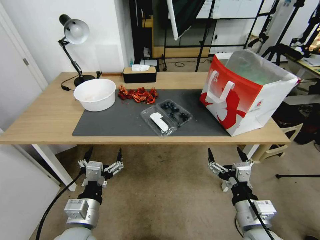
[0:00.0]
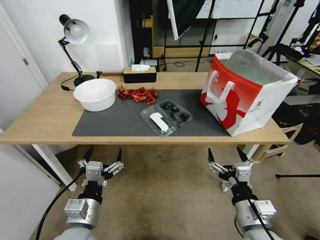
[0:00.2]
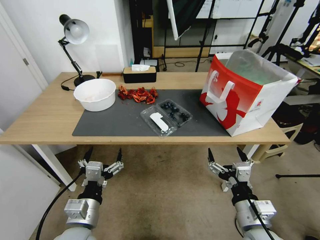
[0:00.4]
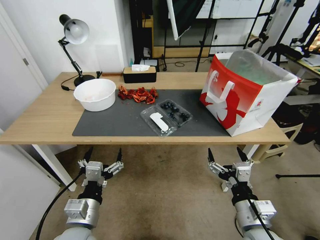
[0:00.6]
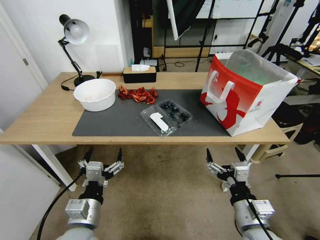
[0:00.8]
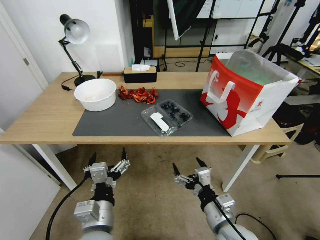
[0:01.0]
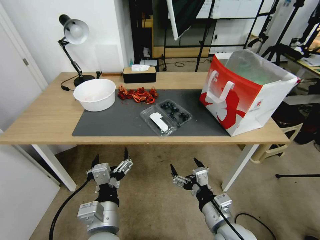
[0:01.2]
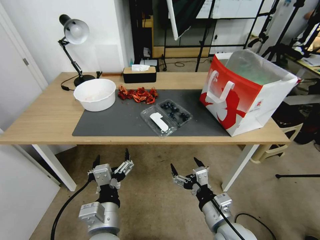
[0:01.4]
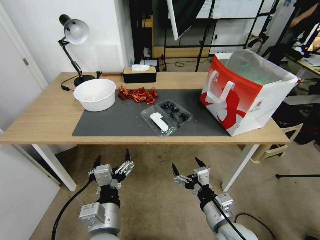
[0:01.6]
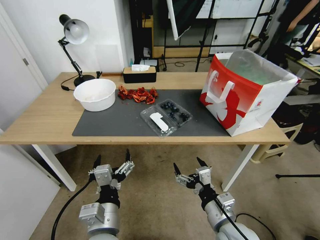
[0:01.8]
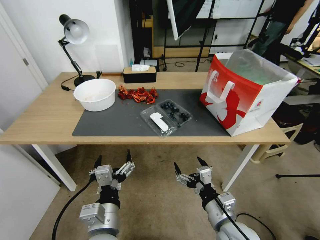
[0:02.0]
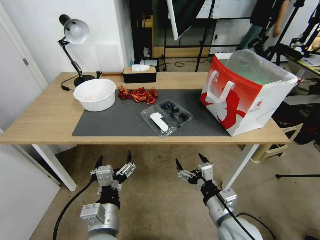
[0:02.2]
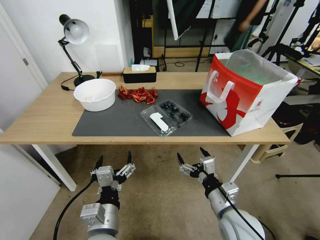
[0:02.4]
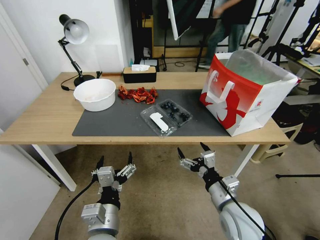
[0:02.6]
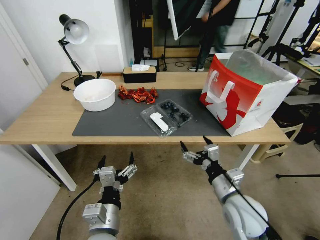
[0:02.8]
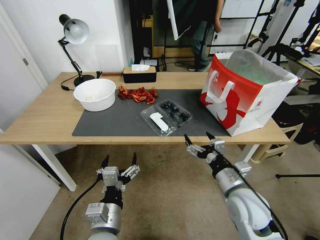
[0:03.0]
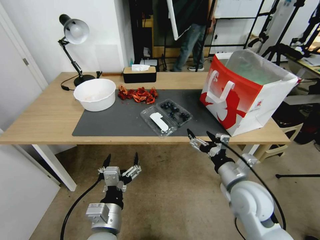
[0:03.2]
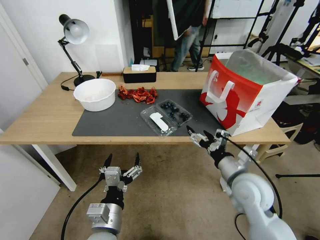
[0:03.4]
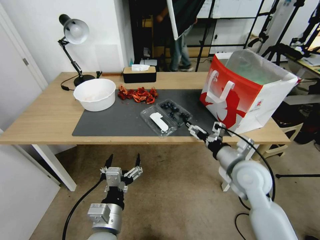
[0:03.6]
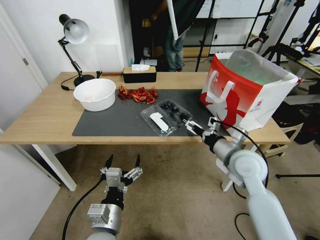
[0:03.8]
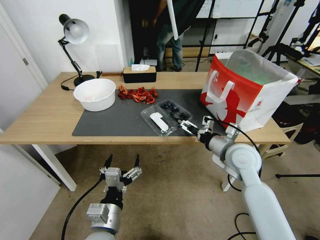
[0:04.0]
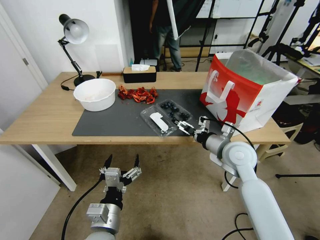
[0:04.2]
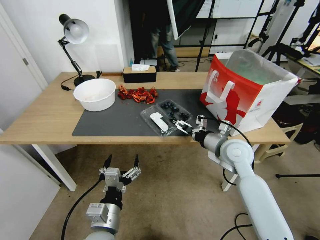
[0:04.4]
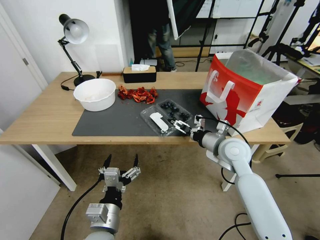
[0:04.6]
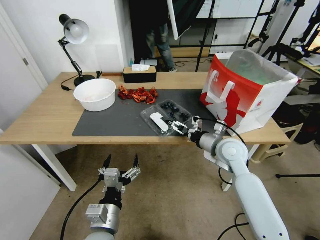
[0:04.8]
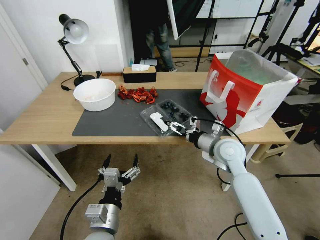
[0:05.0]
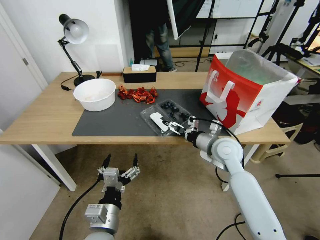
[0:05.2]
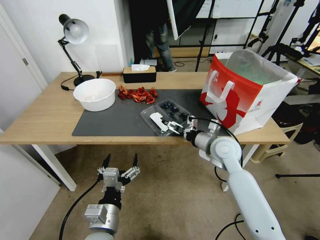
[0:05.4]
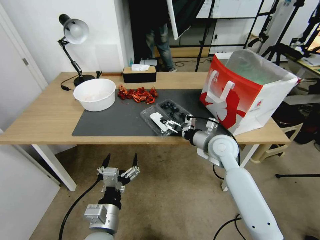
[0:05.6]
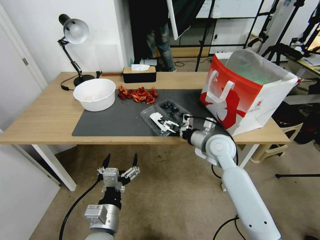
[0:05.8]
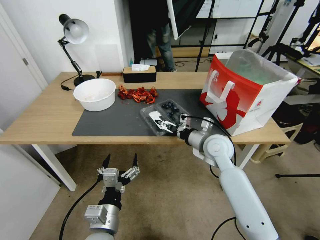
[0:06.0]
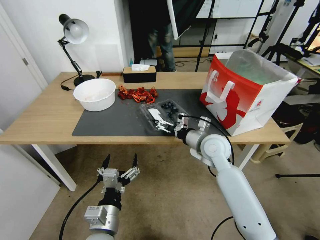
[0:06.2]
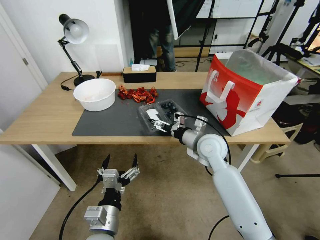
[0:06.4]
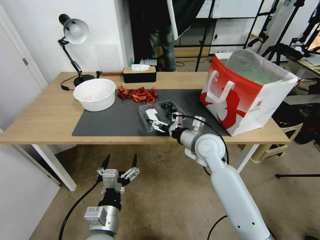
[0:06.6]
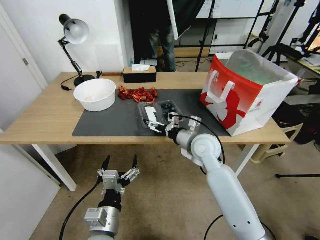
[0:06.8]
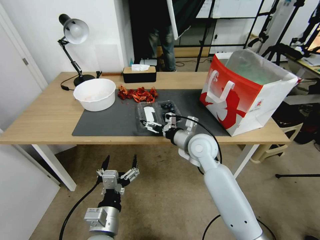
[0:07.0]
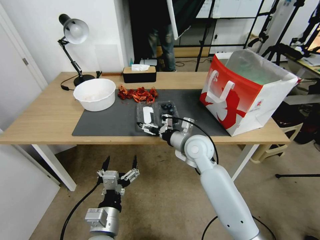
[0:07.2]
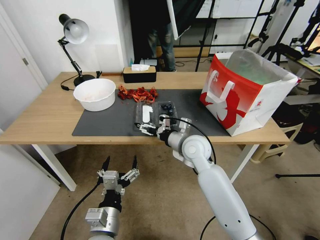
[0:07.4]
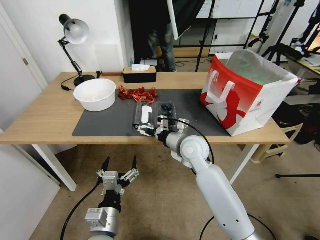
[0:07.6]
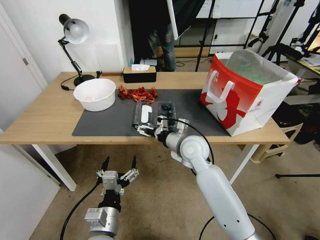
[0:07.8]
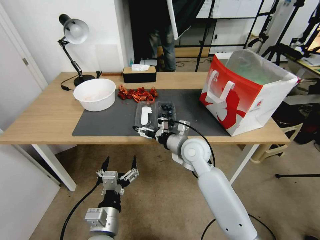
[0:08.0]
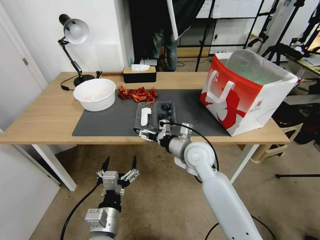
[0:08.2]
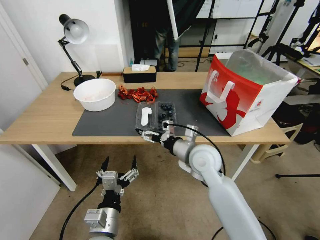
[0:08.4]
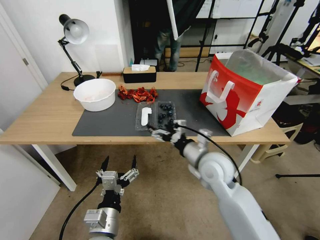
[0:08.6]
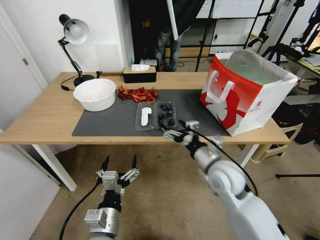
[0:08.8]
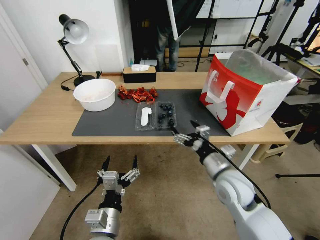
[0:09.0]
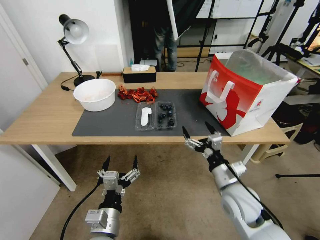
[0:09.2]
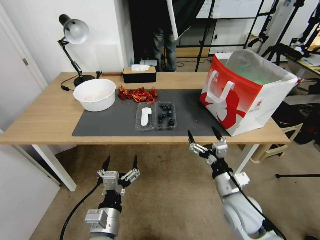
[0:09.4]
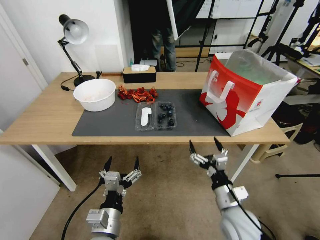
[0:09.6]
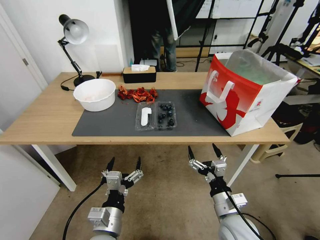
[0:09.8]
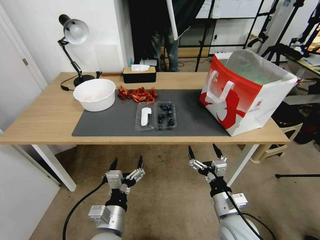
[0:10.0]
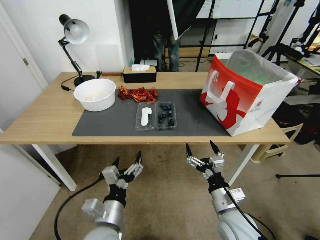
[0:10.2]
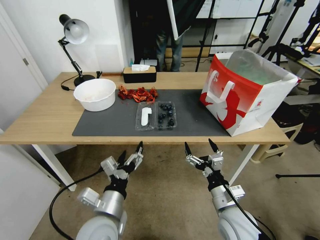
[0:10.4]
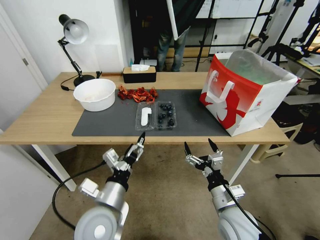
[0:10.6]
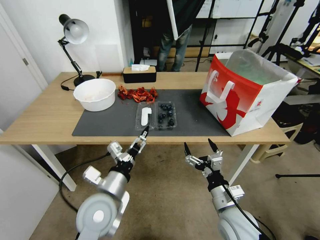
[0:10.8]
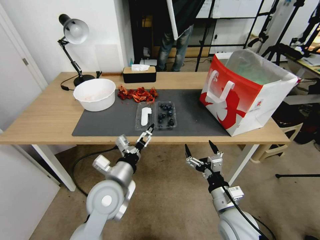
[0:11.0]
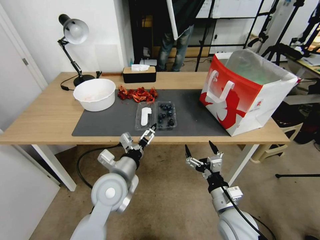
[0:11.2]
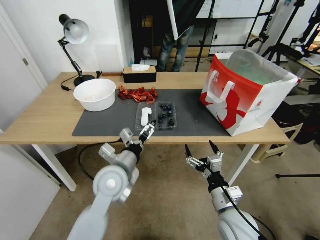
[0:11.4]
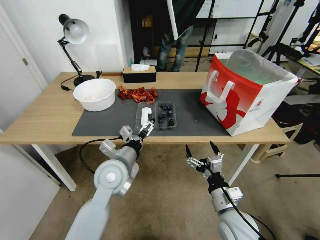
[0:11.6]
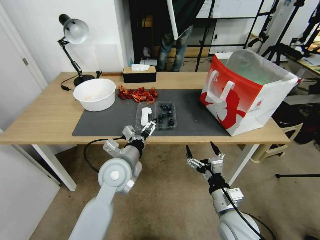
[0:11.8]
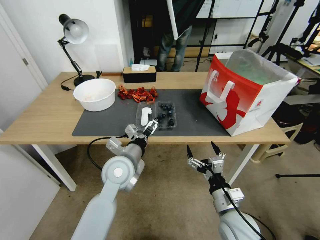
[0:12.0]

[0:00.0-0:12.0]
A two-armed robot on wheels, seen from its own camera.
Task of the whole recording: Close the takeout container lid, then place the container into the takeout bag.
0:01.6 to 0:03.0: The right gripper travels forward by approximately 5 cm.
0:03.0 to 0:04.4: The right gripper travels forward by roughly 15 cm.
0:04.4 to 0:06.0: The right gripper changes place by roughly 5 cm.
0:06.0 to 0:07.6: The right gripper heads to the left, covering about 10 cm.
0:07.6 to 0:09.0: The right gripper heads backward and to the right, covering some 15 cm.
0:09.0 to 0:10.4: The right gripper heads backward and downward, covering about 10 cm.
0:10.4 to 0:12.0: The left gripper heads forward, covering roughly 15 cm.

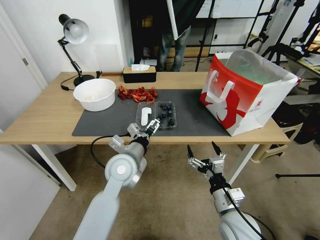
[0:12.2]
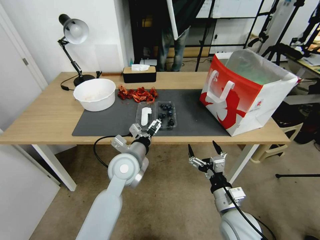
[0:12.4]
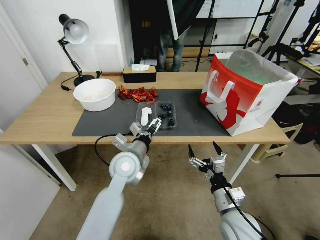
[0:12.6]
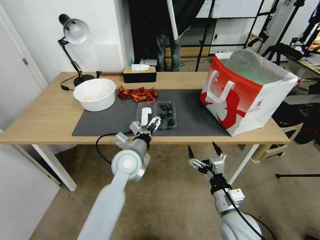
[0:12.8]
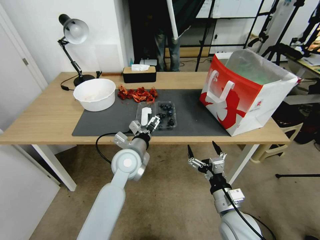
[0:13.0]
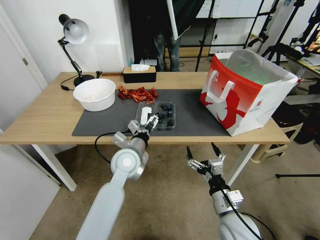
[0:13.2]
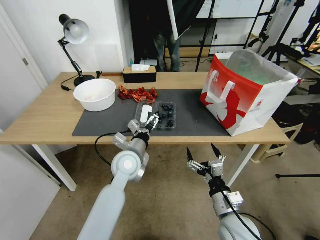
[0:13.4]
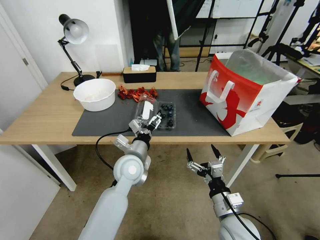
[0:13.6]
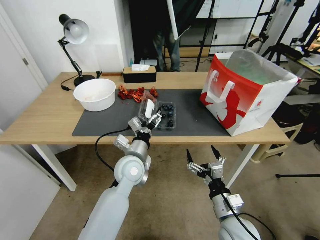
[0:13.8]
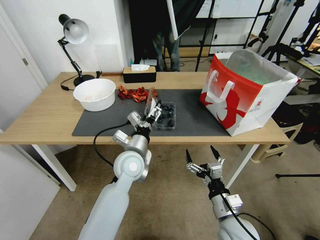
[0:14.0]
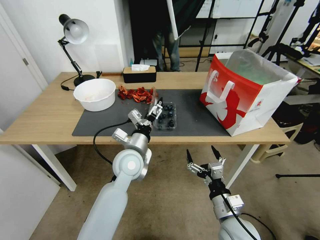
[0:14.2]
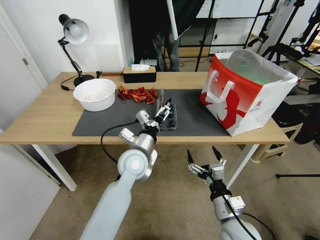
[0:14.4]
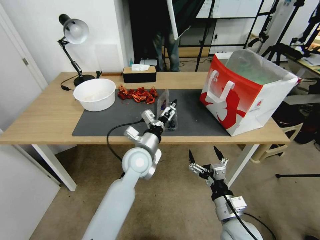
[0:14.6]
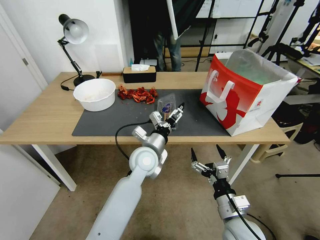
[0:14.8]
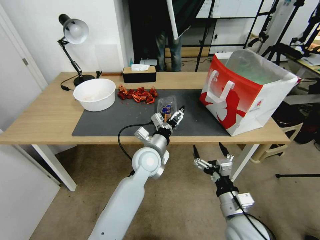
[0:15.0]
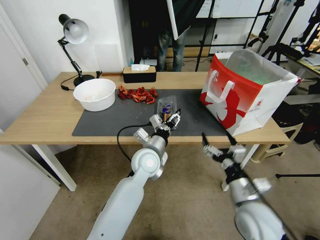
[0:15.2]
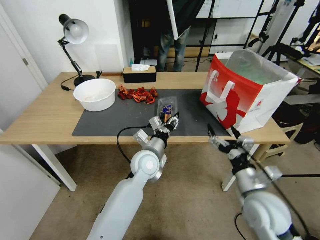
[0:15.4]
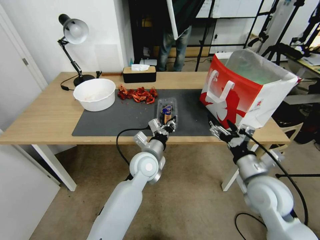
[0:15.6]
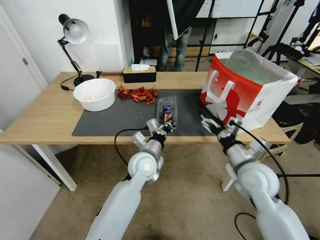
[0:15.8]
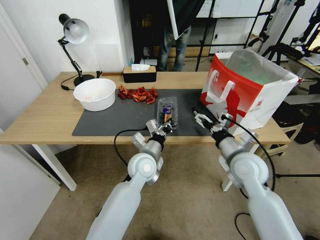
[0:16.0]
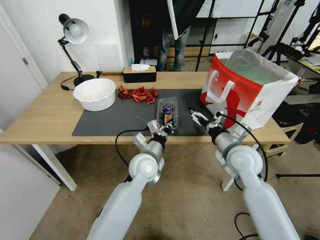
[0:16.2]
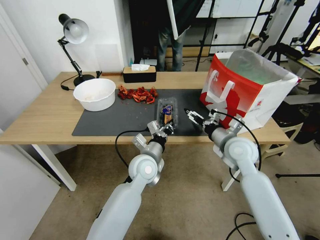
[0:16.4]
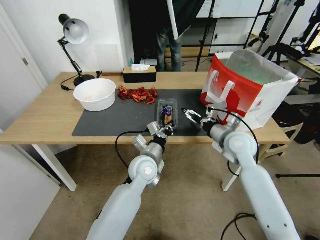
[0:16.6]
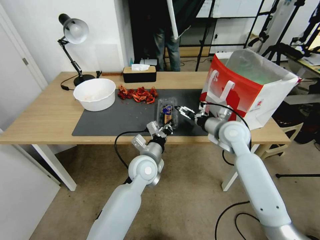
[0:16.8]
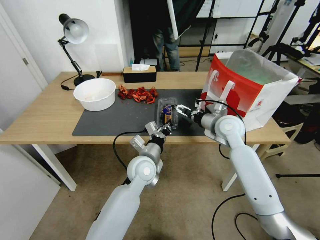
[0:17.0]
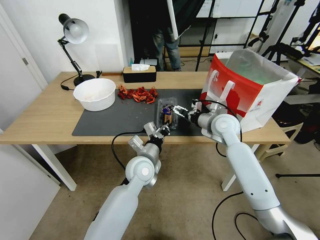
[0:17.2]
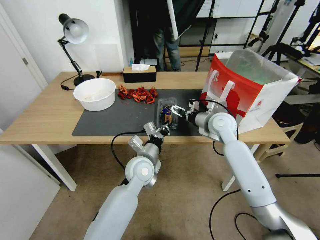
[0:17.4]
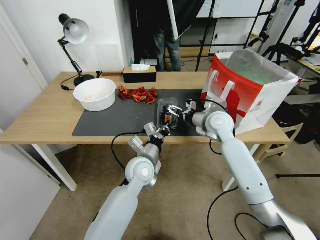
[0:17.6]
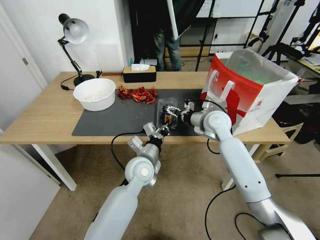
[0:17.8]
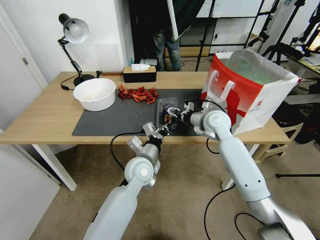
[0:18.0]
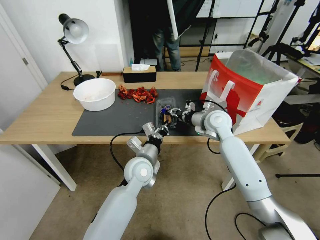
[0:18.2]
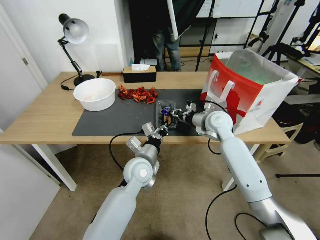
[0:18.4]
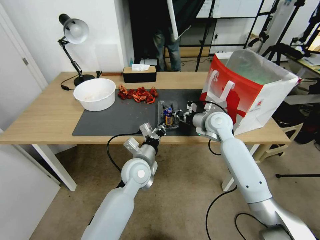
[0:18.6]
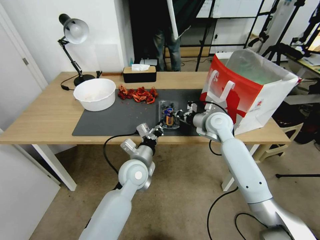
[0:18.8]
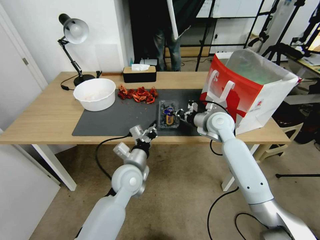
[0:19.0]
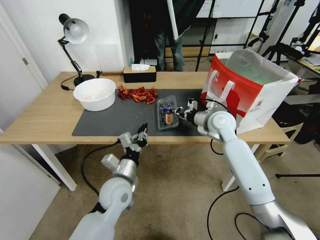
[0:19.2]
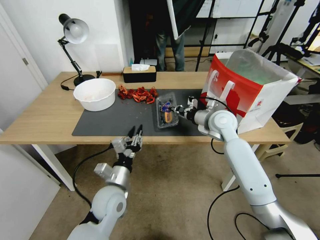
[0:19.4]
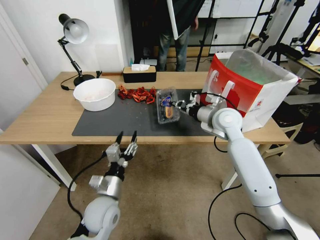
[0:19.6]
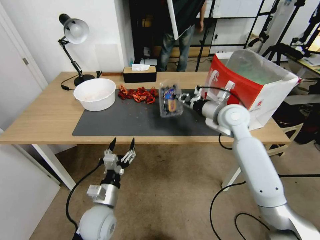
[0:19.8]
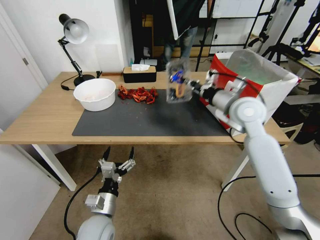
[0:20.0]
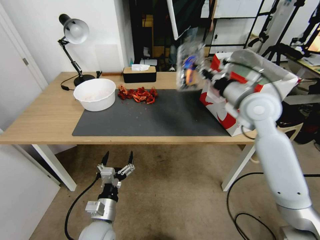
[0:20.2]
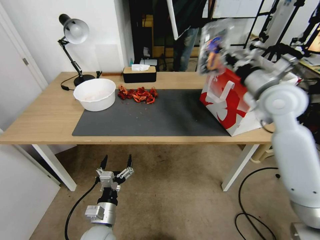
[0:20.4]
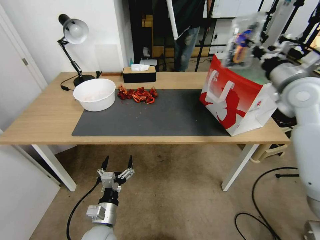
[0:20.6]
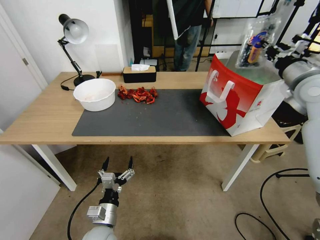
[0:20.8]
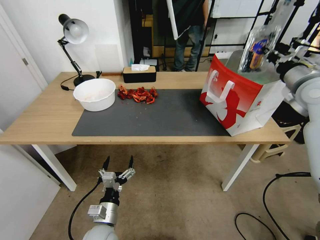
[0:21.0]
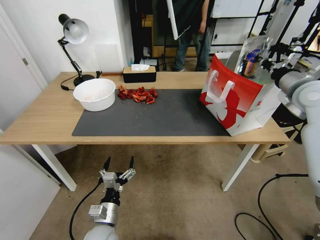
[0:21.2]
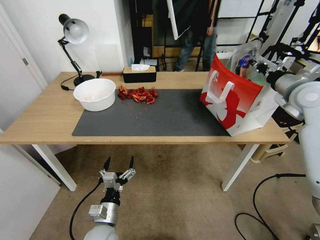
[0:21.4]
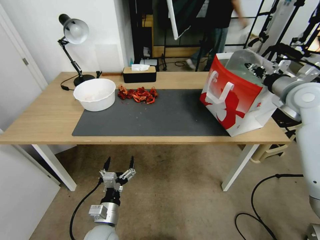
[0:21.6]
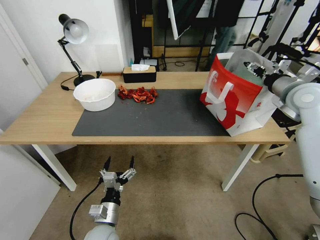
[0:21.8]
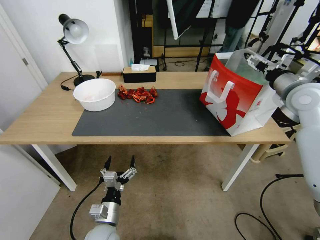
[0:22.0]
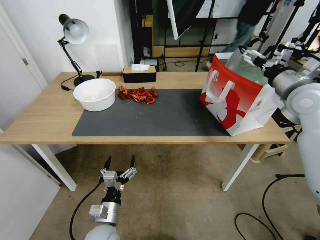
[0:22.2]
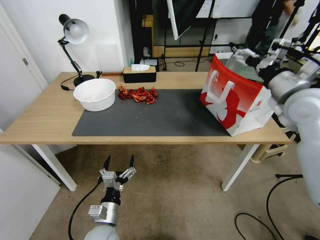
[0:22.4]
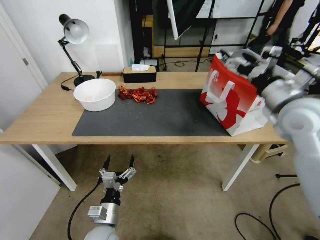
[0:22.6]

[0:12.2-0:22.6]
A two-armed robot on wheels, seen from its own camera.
Task of the whole recording: Close the takeout container lid, then place the container into the takeout bag.
0:12.2 to 0:13.6: The grippers move only a little.
0:13.6 to 0:15.2: The right gripper ends up about 5 cm from where it was, while the left gripper heads to the right, covering some 5 cm, and closes.
0:15.2 to 0:16.6: The right gripper travels forward and upward by approximately 20 cm. The left gripper closes.
0:16.6 to 0:18.2: The right gripper travels forward by about 10 cm, and closes up.
0:18.2 to 0:19.6: The left gripper goes about 15 cm backward and to the left, and opens its fingers. The right gripper closes up.
0:19.6 to 0:21.2: The left gripper goes some 10 cm downward and backward, and opens up. Meanwhile the right gripper travels to the right and upward by about 25 cm.
0:21.2 to 0:22.6: The right gripper travels to the left and backward by approximately 10 cm, and opens up.
